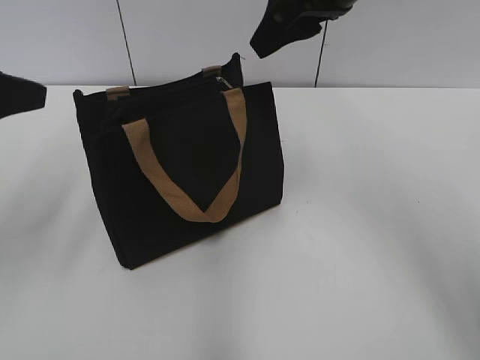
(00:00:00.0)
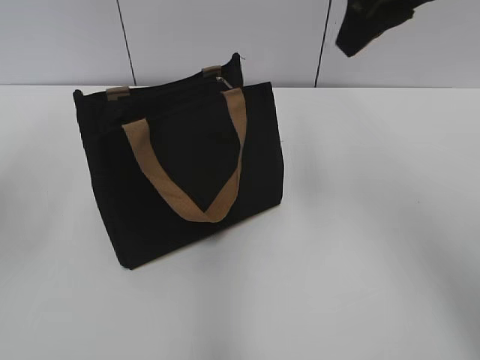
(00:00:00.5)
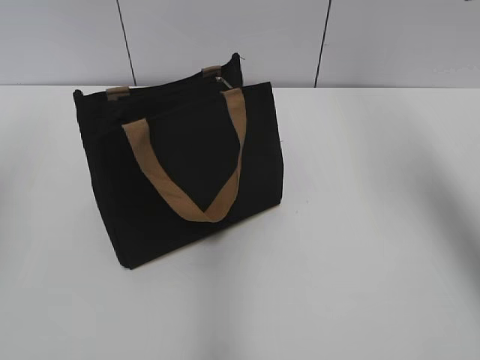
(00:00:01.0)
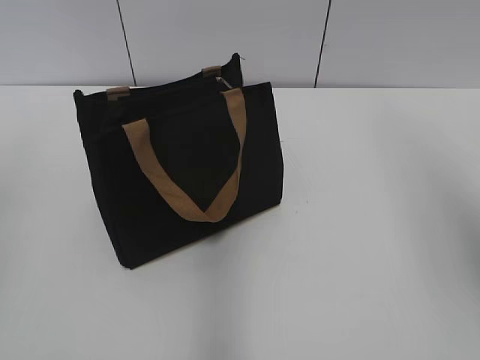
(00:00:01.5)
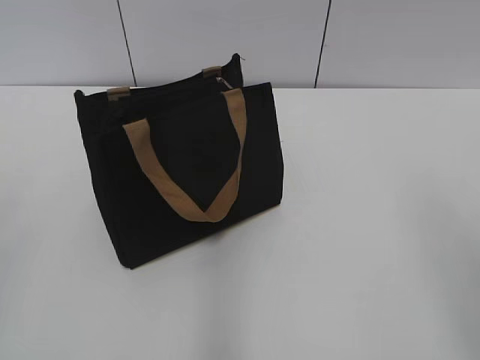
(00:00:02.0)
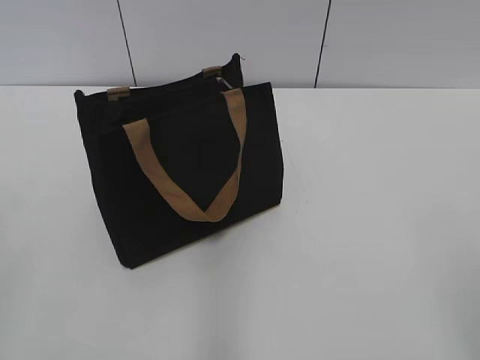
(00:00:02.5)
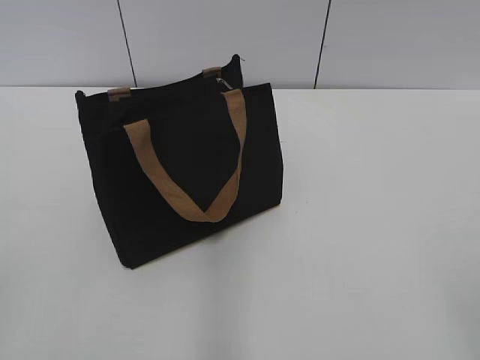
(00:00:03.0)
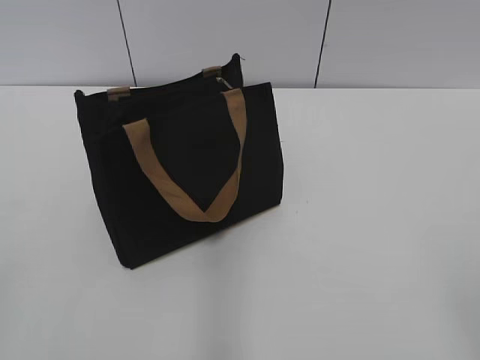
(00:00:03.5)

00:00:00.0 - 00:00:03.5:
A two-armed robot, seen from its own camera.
00:00:00.0 - 00:00:02.0: The right gripper shifts roughly 30 cm backward and to the right, while the left gripper shifts roughly 15 cm backward.
